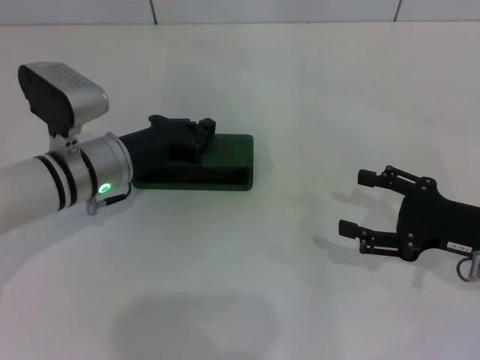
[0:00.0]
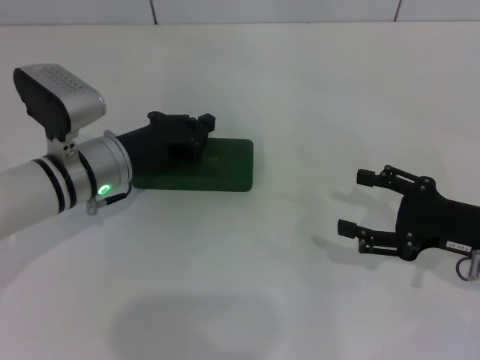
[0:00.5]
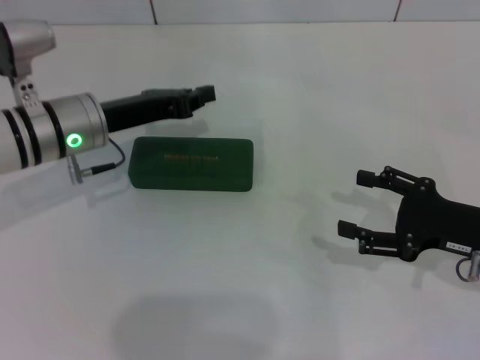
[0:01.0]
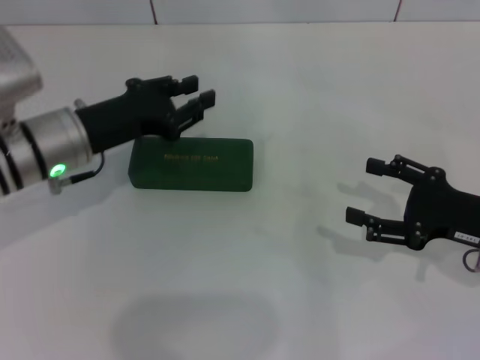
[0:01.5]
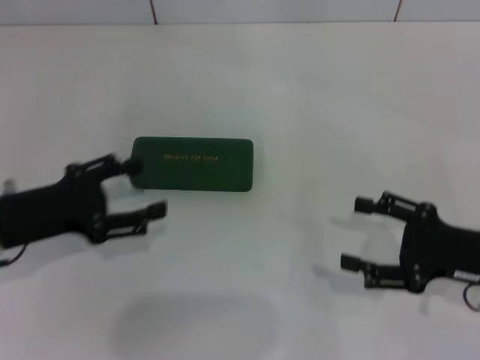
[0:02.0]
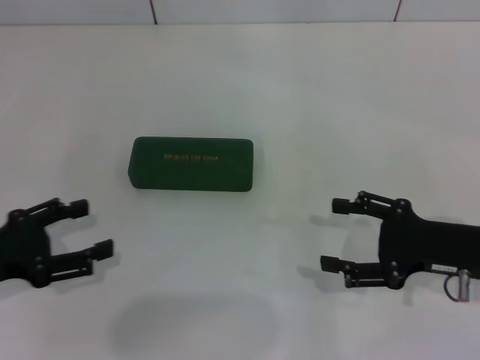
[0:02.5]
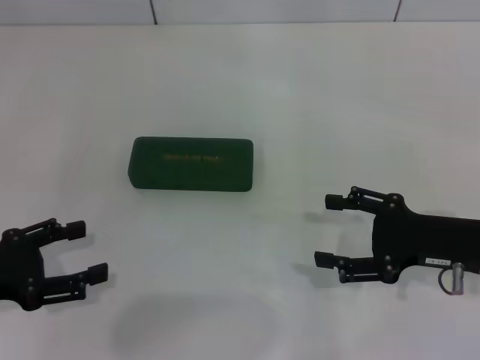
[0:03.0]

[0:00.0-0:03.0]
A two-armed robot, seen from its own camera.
0:00.0 to 0:01.5: The left gripper ends up approximately 5 cm from where it was.
0:01.5 to 0:03.0: The left gripper shifts approximately 20 cm backward and to the left, and opens its fingers.
